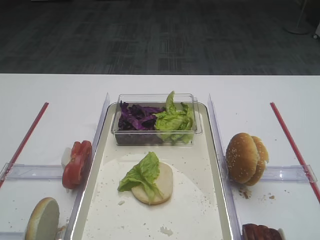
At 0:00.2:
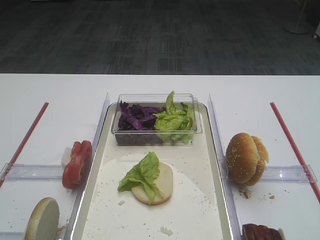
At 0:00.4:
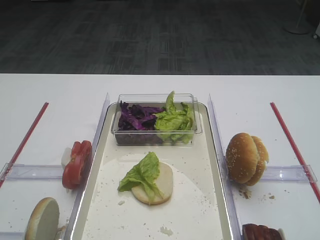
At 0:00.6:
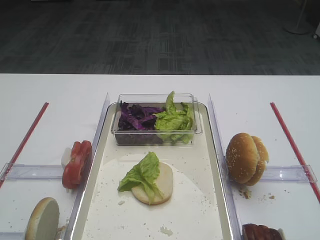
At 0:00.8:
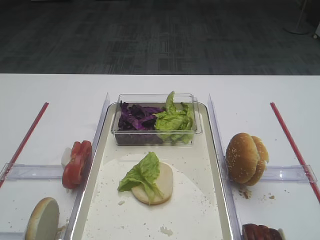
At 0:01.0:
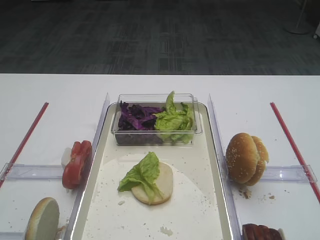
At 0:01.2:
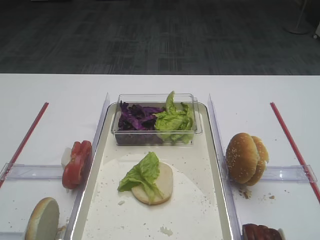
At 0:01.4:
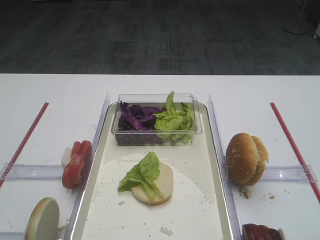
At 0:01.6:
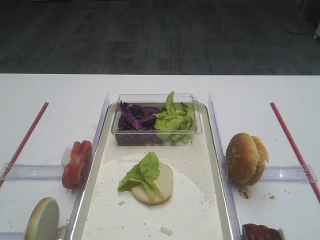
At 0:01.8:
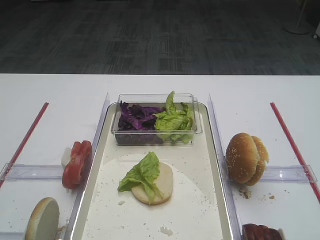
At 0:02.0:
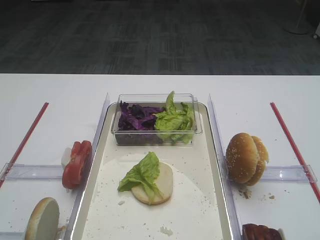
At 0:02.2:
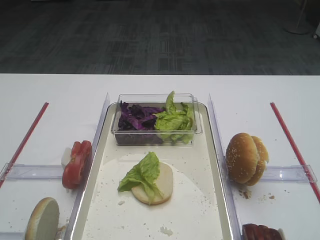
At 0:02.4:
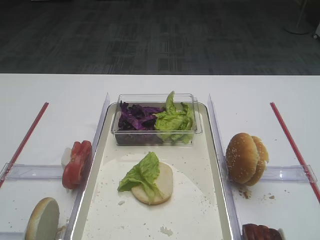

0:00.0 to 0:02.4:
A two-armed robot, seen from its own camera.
0:00.0 to 0:02.4: Neither gripper changes place.
